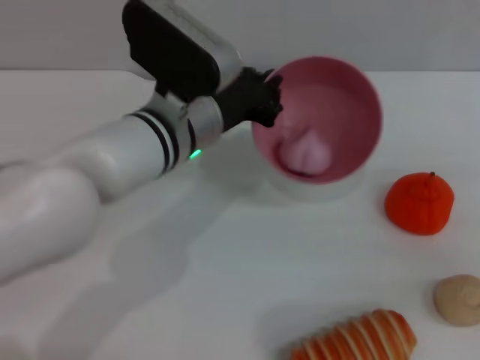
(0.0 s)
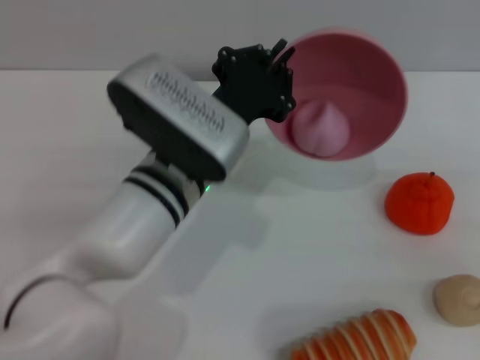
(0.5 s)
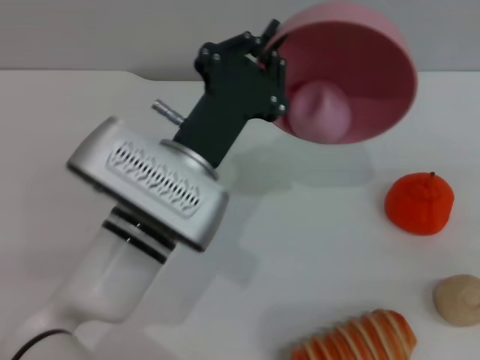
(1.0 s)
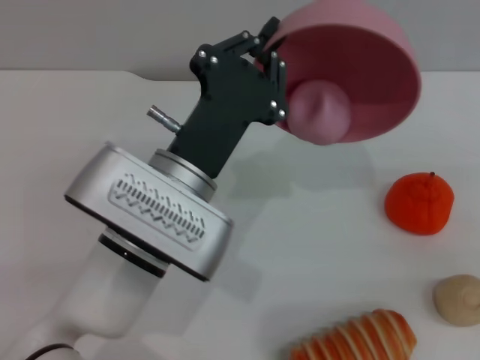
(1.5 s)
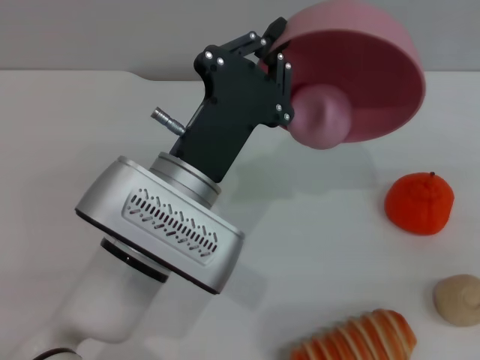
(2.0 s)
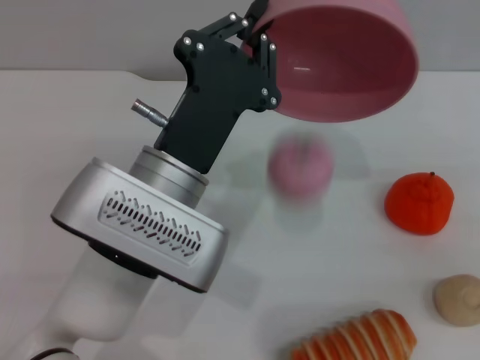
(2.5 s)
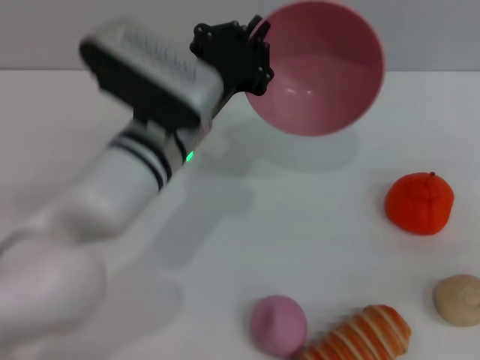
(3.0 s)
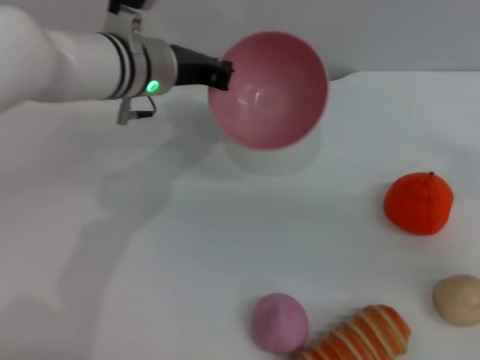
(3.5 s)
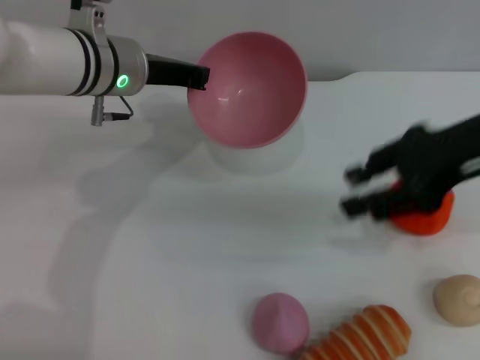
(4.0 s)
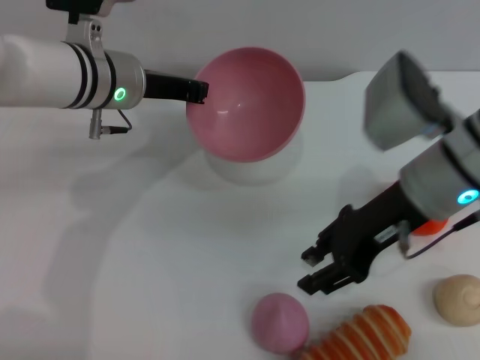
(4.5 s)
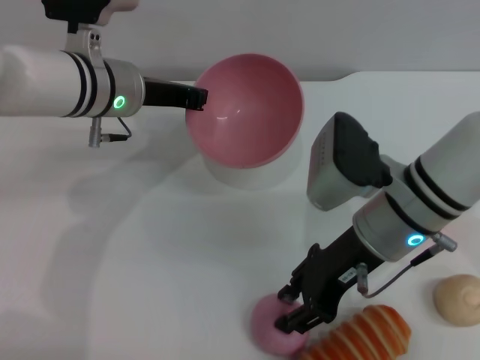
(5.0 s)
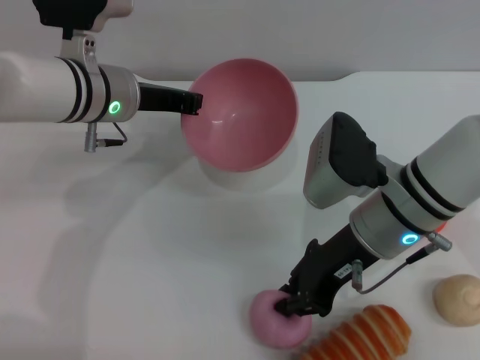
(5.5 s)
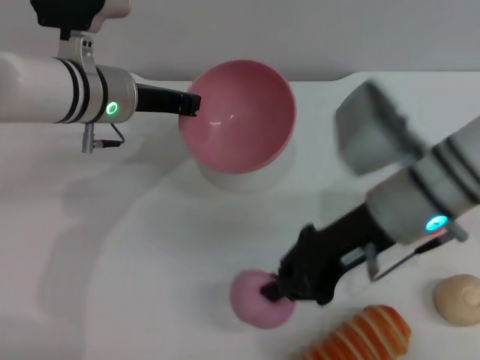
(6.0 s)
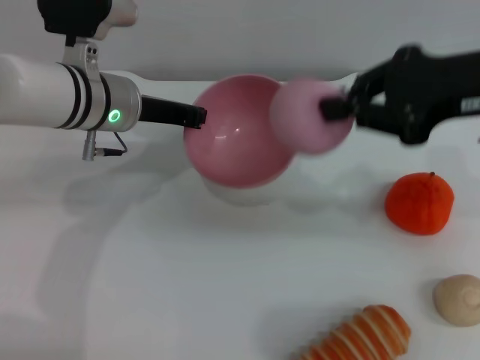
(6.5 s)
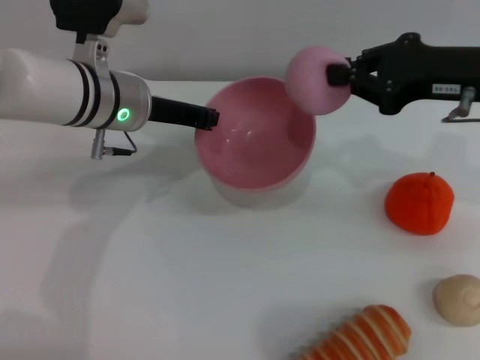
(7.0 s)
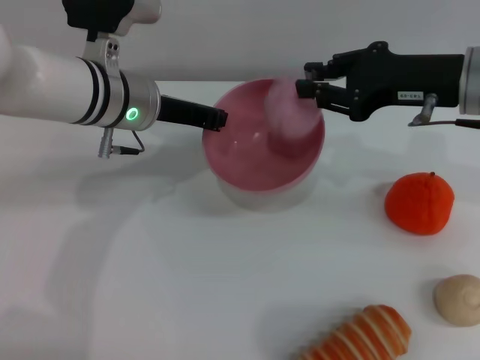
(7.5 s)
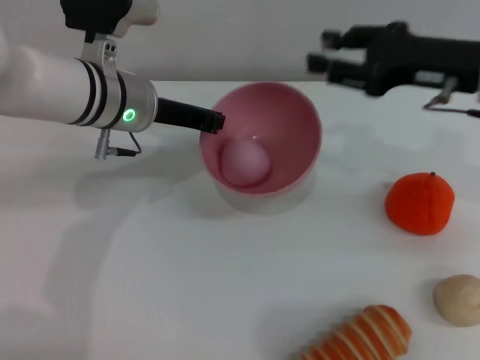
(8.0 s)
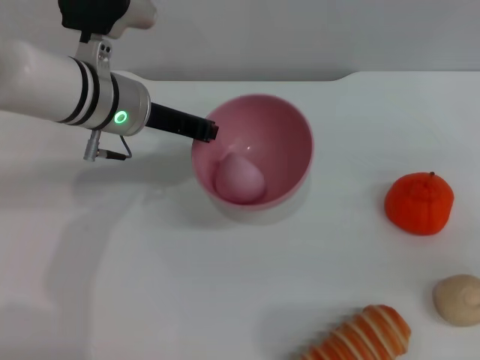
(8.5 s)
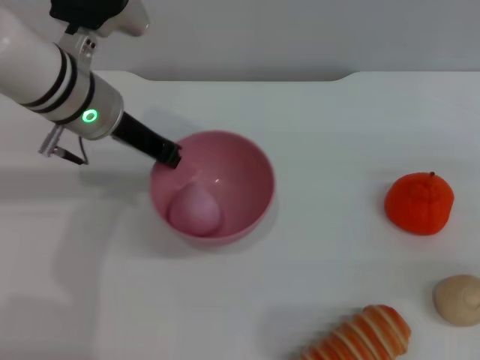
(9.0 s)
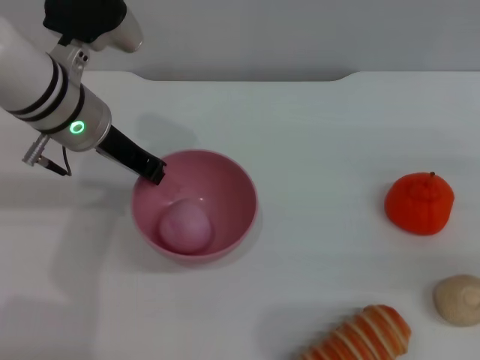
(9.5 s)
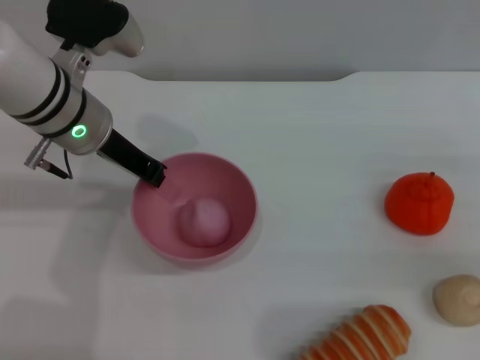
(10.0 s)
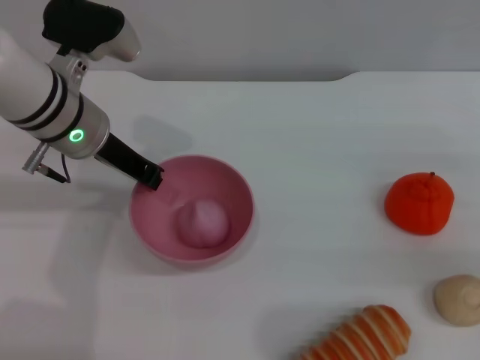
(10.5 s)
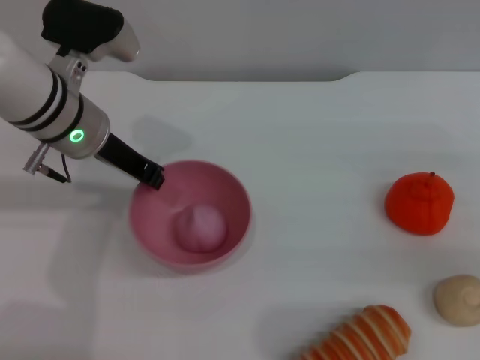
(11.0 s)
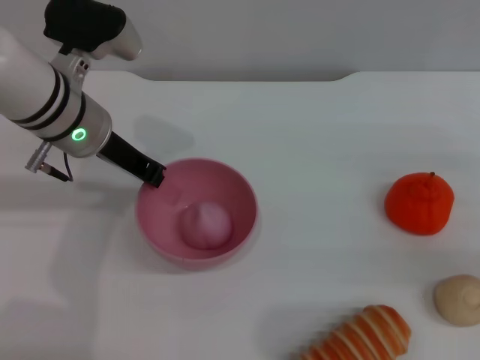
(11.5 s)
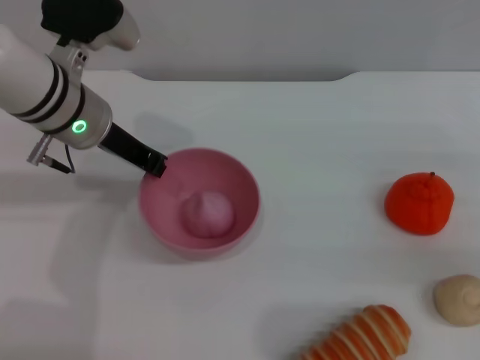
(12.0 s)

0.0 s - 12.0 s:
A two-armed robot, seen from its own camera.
Task of the whole recording: put the peach into the pink bowl and pour it out repeatedly.
Step, 0.0 s - 3.0 s: Pour the peach out of bowl.
Step, 3.5 s - 6.0 s: Pick up the peach with the right gripper.
Step, 6.5 s - 8.0 s: Place the peach into the bowl.
0.0 s - 2.0 s: The left gripper goes roughly 10 cm backward.
2.0 s - 4.0 s: The right gripper moves to the left and upward, roughly 20 cm. The left gripper is displaced forward and to the left by roughly 20 cm.
4.0 s - 6.0 s: The right gripper heads to the left and downward, covering approximately 15 cm, and closes.
6.0 s - 8.0 s: The right gripper travels to the right and forward by about 10 cm, and opens.
8.0 s - 10.0 s: The right gripper is displaced to the right, backward and downward by approximately 20 cm.
10.0 s - 12.0 s: Neither gripper changes place.

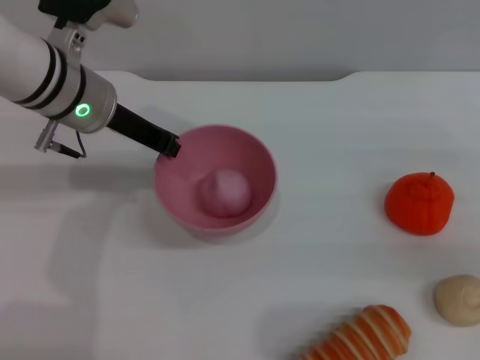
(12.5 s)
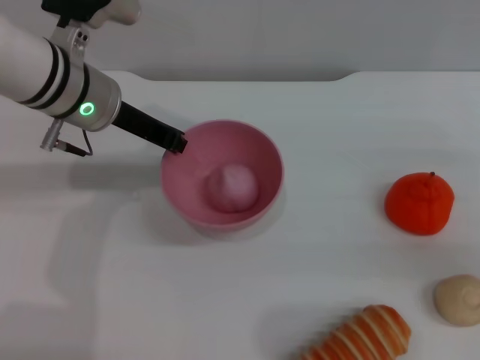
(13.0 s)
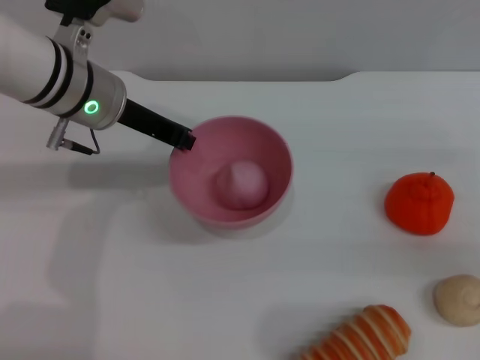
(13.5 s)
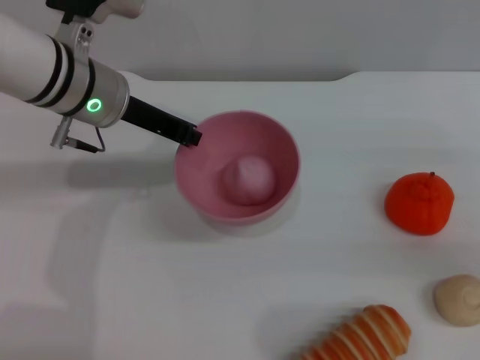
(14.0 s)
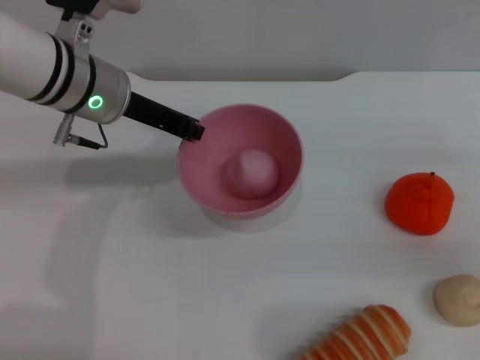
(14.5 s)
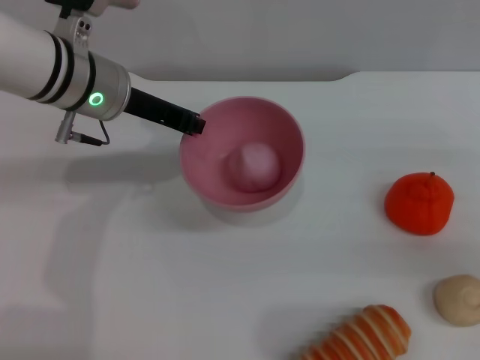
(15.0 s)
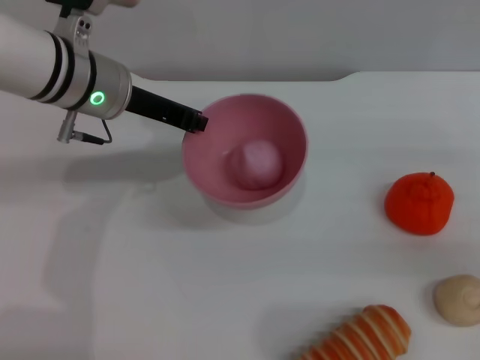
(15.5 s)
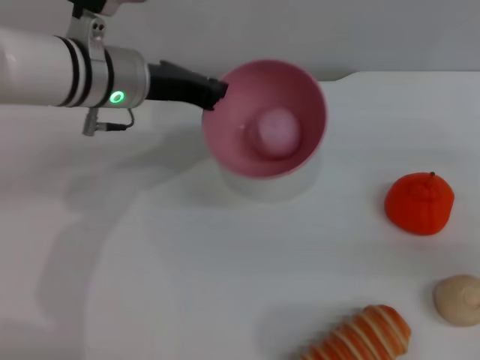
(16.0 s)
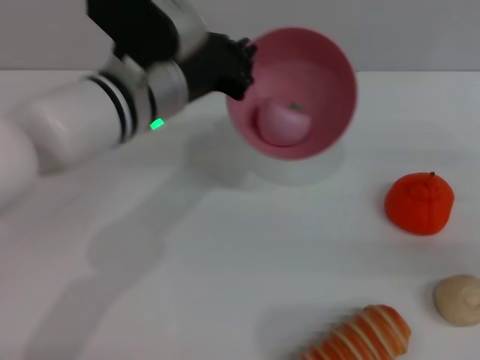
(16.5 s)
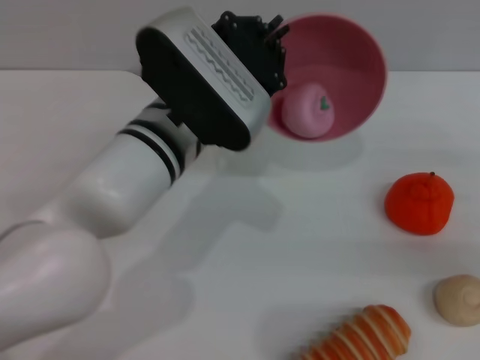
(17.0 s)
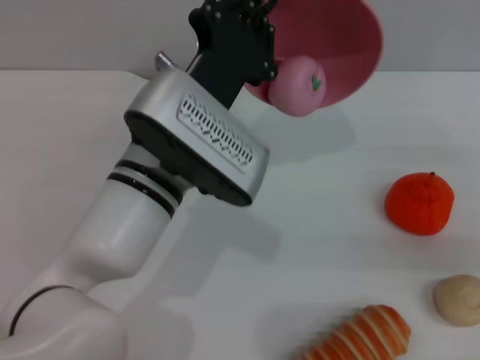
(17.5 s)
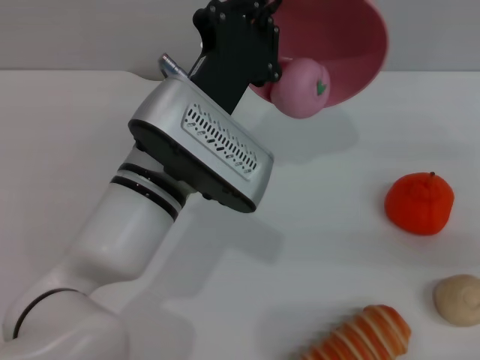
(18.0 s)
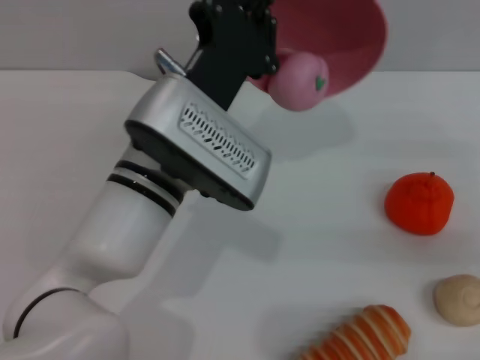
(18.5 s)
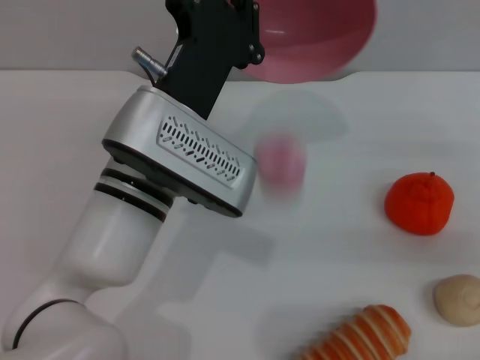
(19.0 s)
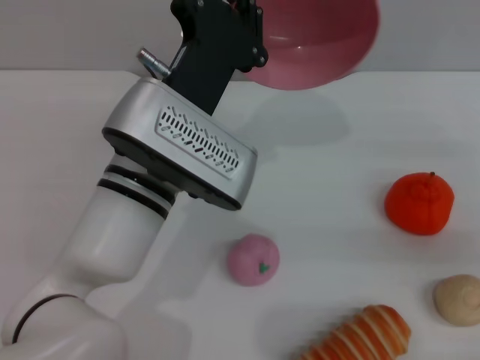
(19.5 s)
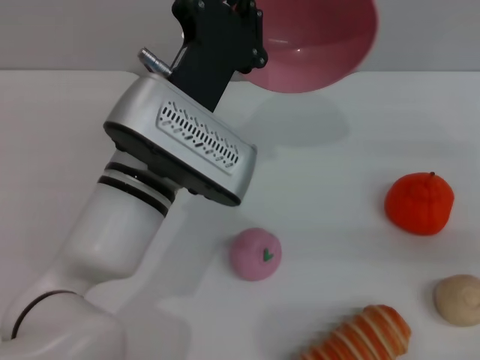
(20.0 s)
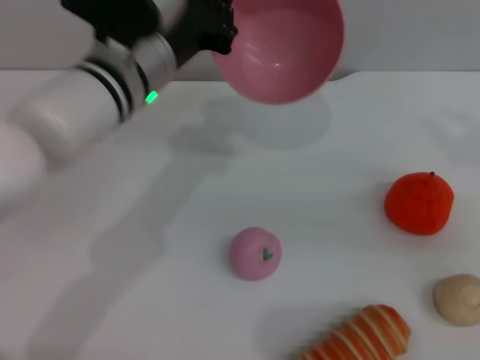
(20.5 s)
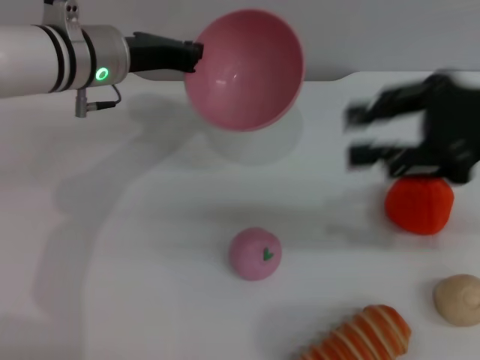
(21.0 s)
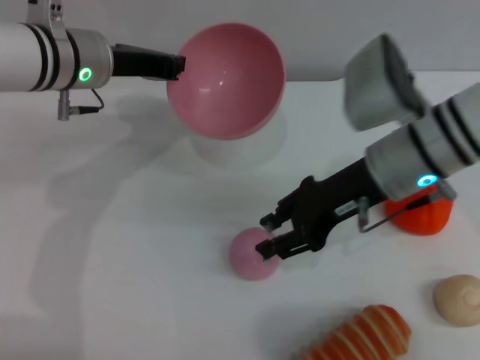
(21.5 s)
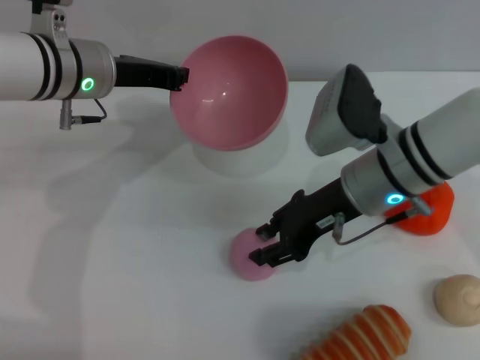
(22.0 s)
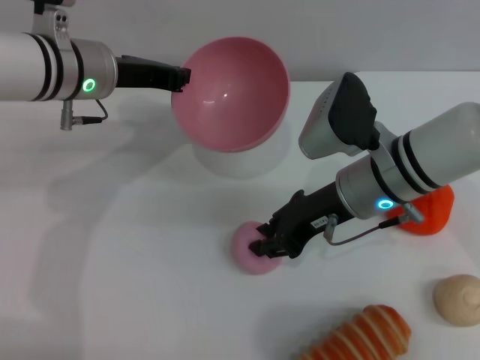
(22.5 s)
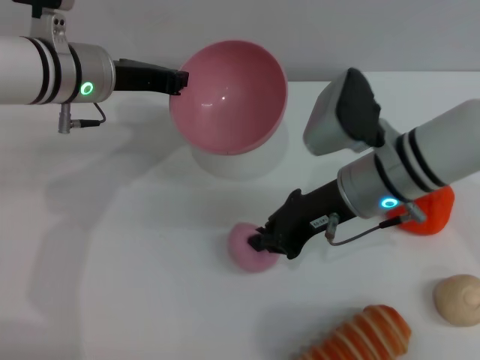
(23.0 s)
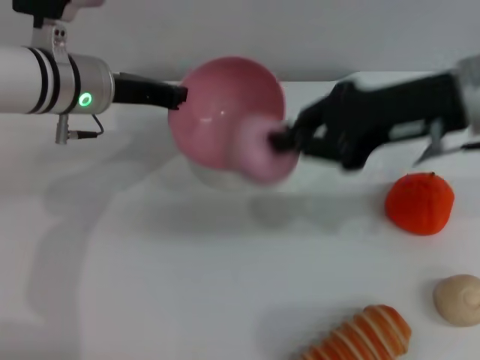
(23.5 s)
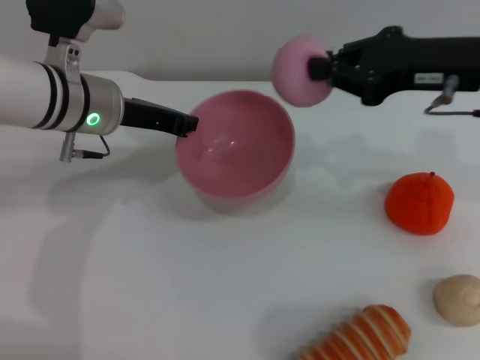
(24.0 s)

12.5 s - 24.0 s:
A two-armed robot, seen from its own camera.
Task of the whole recording: put the peach into the pink bowl and pour it out repeatedly.
Step, 12.5 s - 19.0 s: Pour the peach out of bowl.
Step, 19.5 s - 23.0 s: Pick up the peach with the right gripper.
12.5 s - 14.5 s: The grippers move only a little.
14.5 s - 16.5 s: The left gripper shifts approximately 5 cm to the right.
16.5 s - 18.5 s: The left gripper moves backward, about 5 cm.
18.5 s - 20.0 s: The grippers make only small movements.
20.0 s - 22.0 s: The left gripper travels forward and to the left by some 15 cm. The right gripper heads to the left, covering roughly 25 cm.
22.0 s - 24.0 s: The right gripper goes approximately 15 cm upward and to the right, and closes.

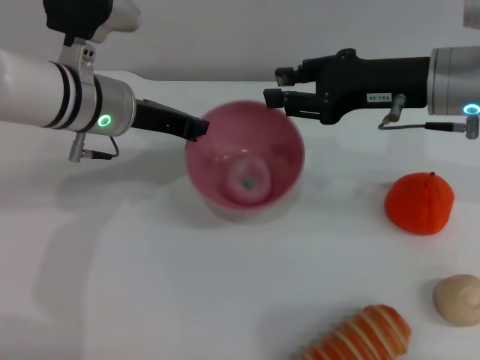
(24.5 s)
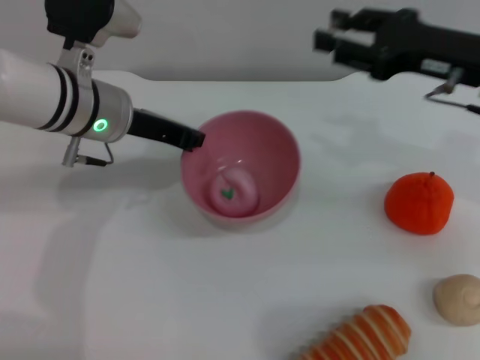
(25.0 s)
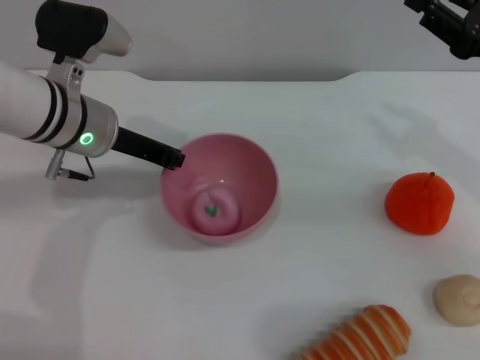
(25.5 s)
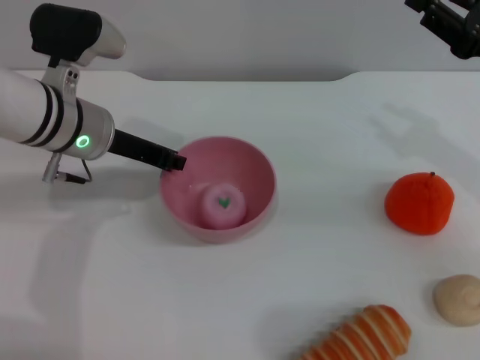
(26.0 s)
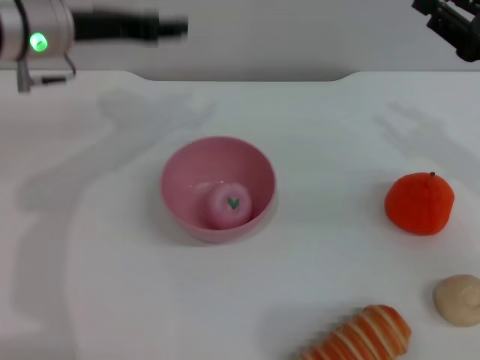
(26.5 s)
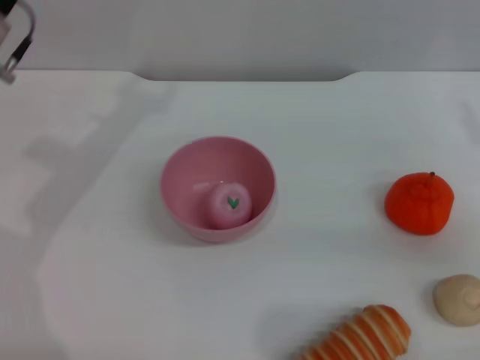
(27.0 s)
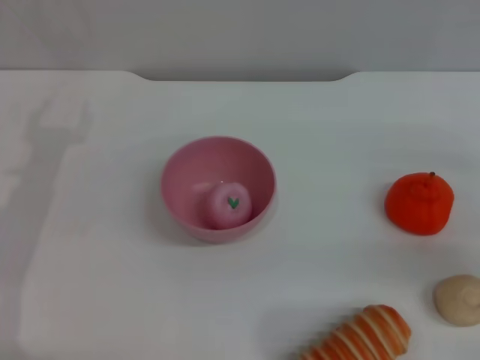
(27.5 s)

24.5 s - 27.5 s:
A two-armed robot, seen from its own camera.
Task of the whole recording: put the peach into the pink bowl and pour it out repeatedly.
Step, 25.5 s - 26.5 s: Place the bowl on the table.
24.5 s - 26.0 s: The right gripper shifts about 10 cm to the right.
26.0 s - 27.5 s: The right gripper goes approximately 10 cm to the right, downward and backward, while the left gripper moves to the left and backward, about 15 cm, and opens.
